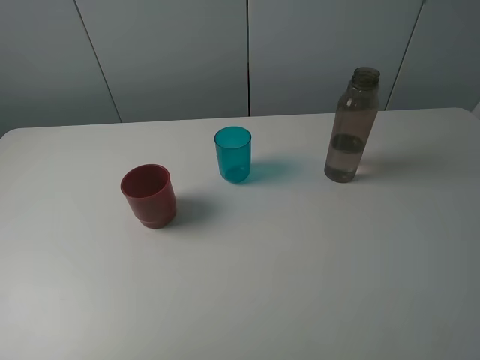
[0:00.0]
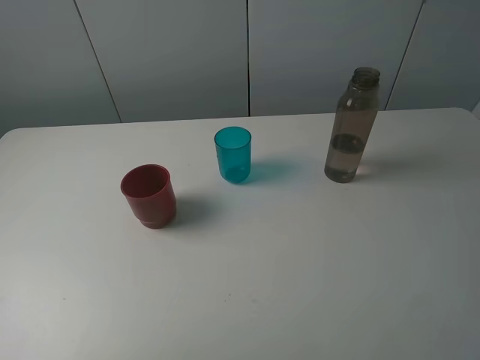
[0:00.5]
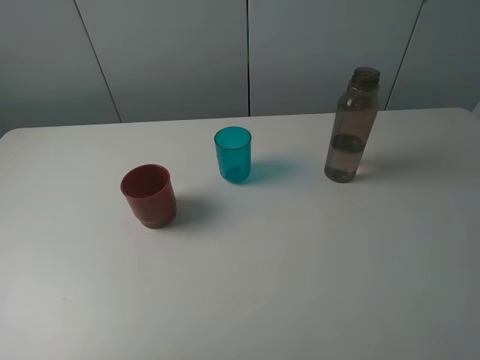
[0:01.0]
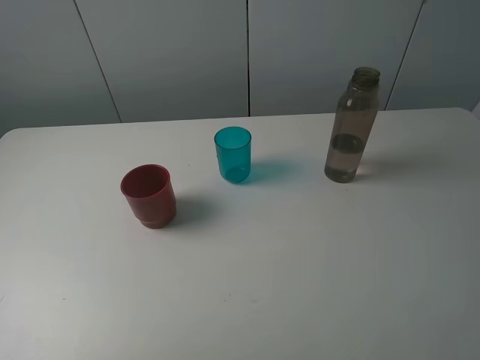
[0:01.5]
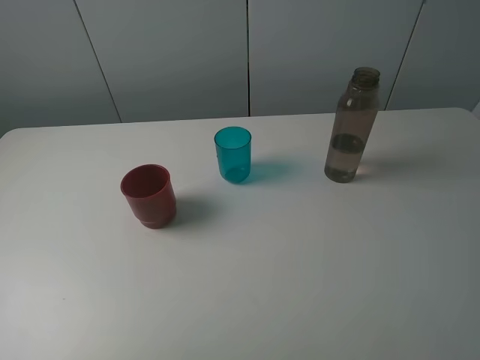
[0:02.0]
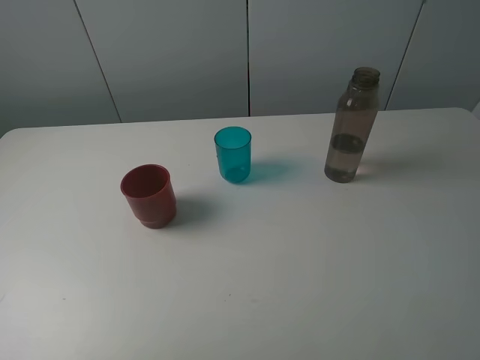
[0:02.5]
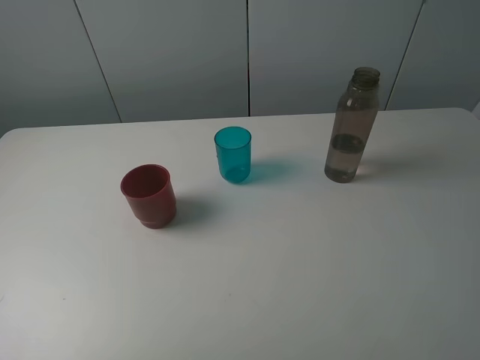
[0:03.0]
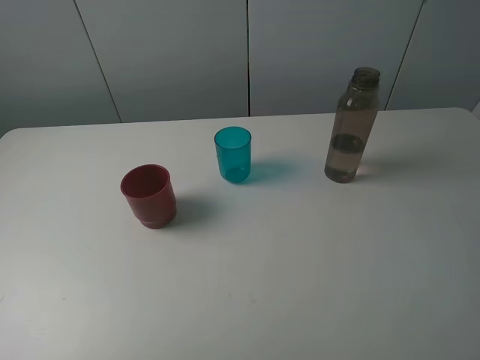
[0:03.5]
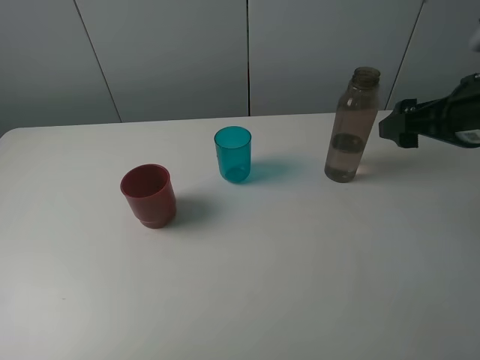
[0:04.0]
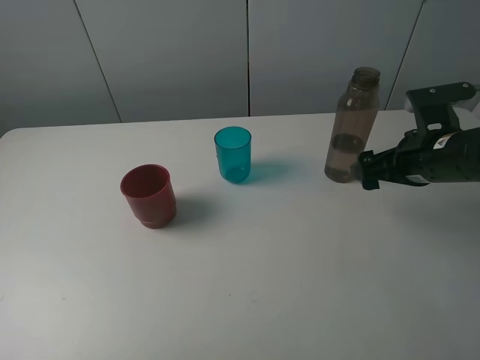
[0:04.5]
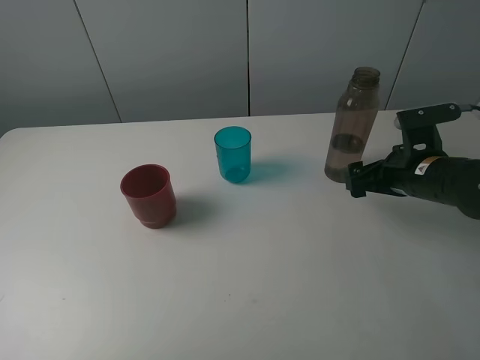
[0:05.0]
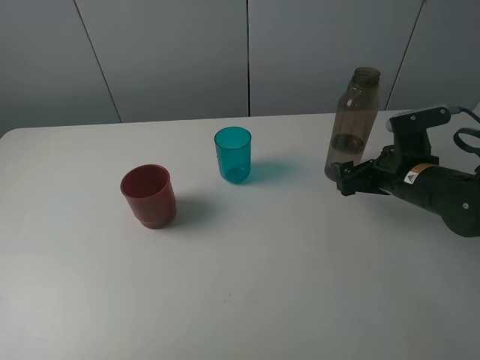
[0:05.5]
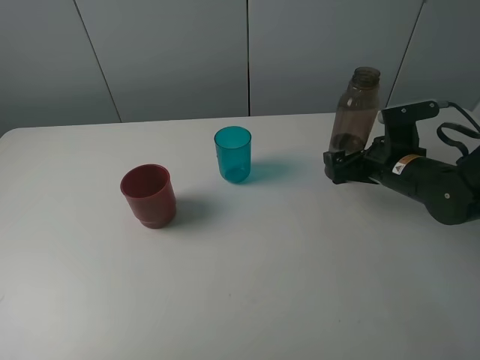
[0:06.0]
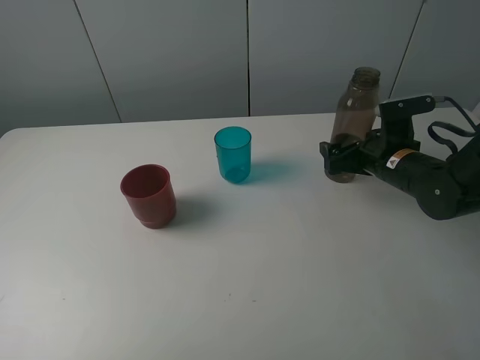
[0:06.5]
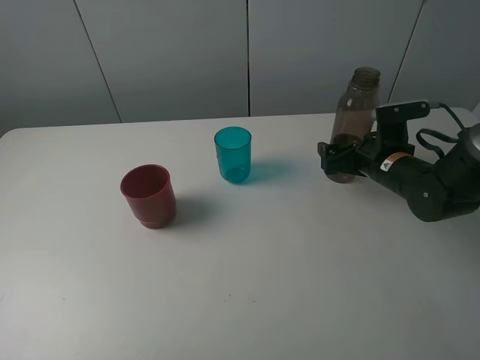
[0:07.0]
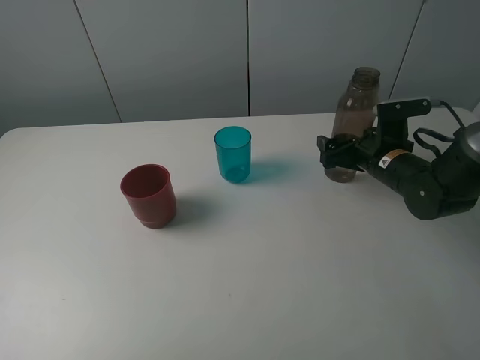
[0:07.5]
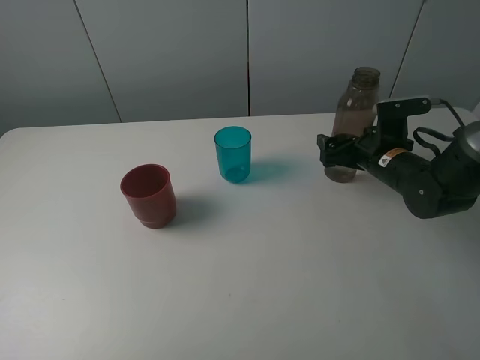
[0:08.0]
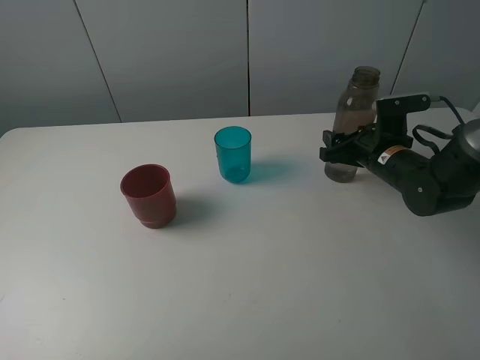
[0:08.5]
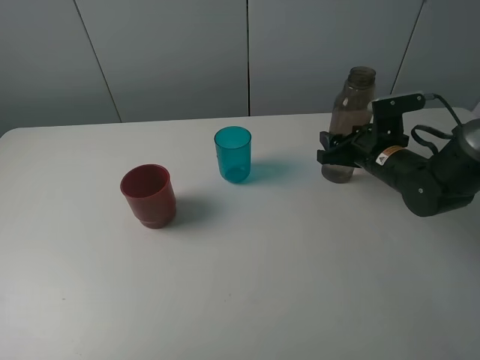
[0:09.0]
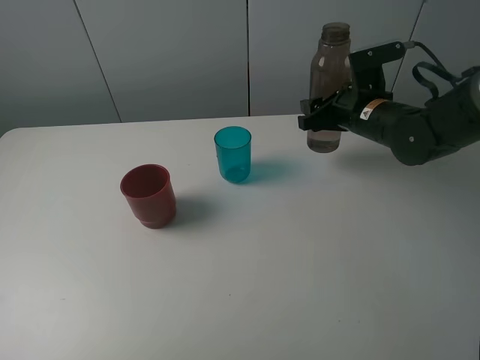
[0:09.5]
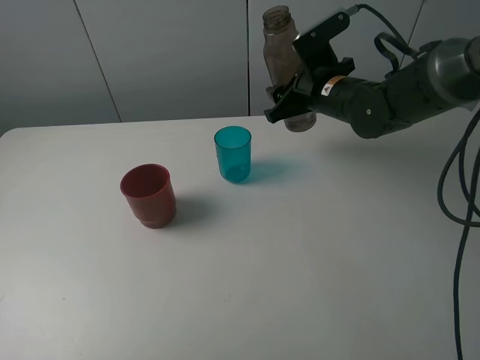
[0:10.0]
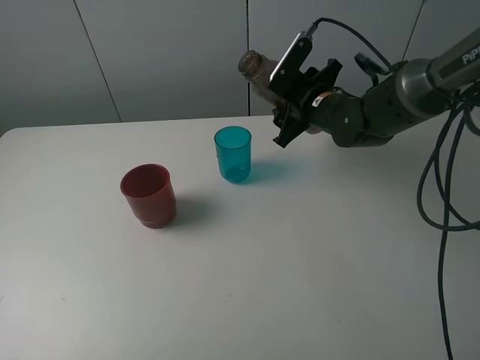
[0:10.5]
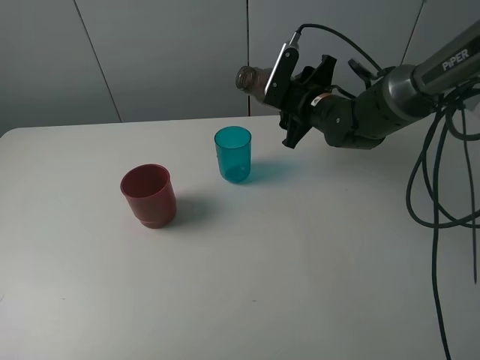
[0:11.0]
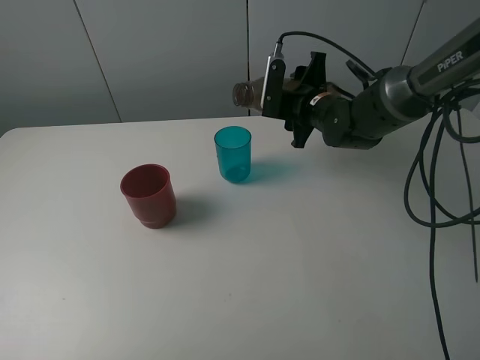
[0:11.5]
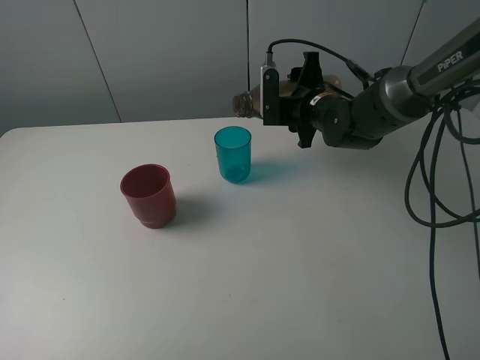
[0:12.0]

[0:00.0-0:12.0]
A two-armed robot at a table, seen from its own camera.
Task of the whole recording: pick up the bottle and pour water into the cup, then pick up the cup containing water and pour it into another cup.
Step, 0:00.0 to 0:08.5: Grasp the brown bottle with the right gripper.
0:00.0 to 0:02.0: Both grippers stay put.
0:02.0 to 0:04.0: The right gripper shifts some 25 cm forward.
0:04.0 to 0:06.0: The right gripper goes about 15 cm downward and forward.
0:06.0 to 0:08.0: The grippers stay close to where they were, moving slightly.
0:08.0 to 0:10.0: The right gripper heads to the left and upward, covering some 15 cm, and closes.

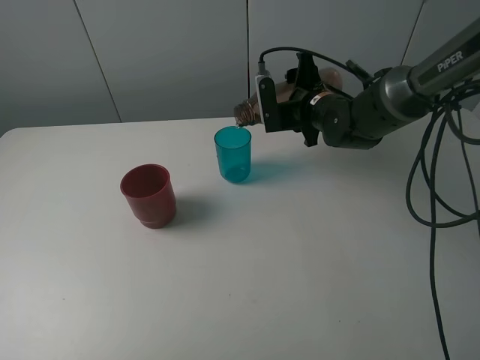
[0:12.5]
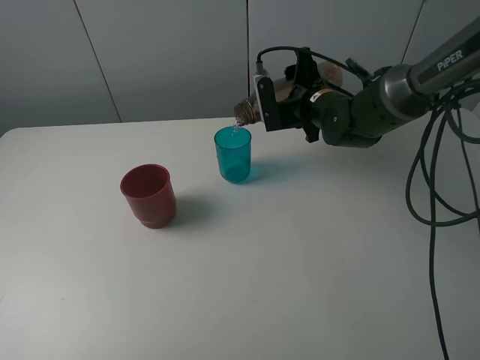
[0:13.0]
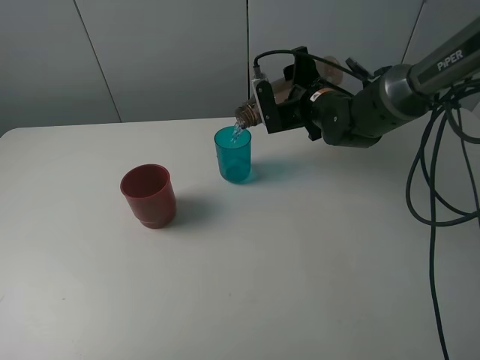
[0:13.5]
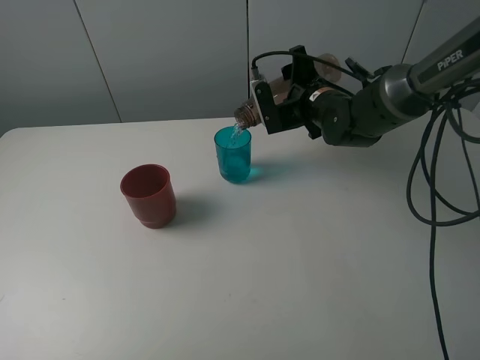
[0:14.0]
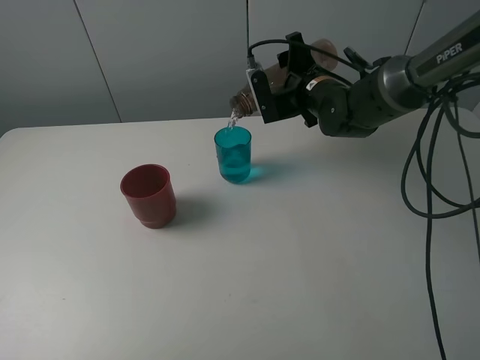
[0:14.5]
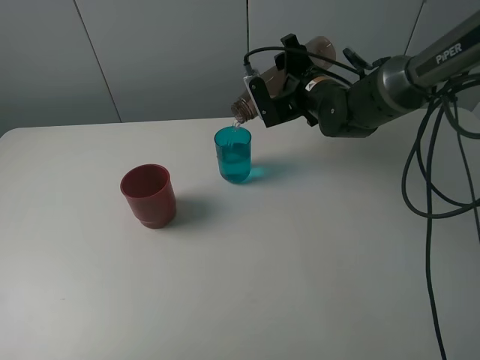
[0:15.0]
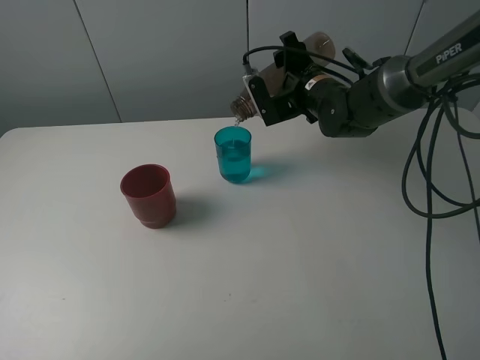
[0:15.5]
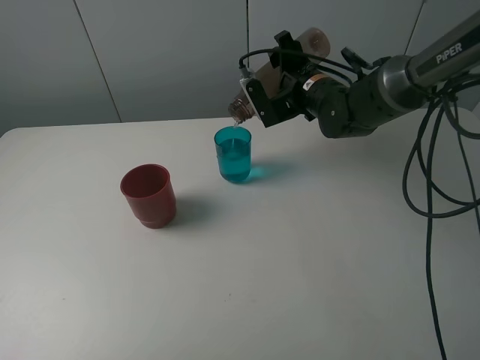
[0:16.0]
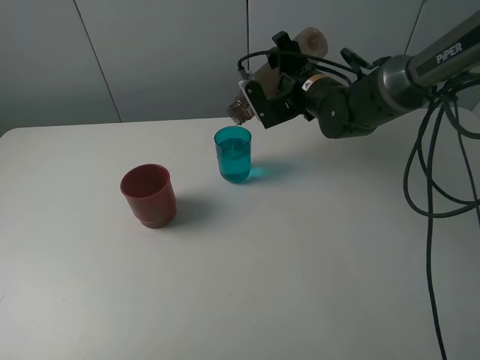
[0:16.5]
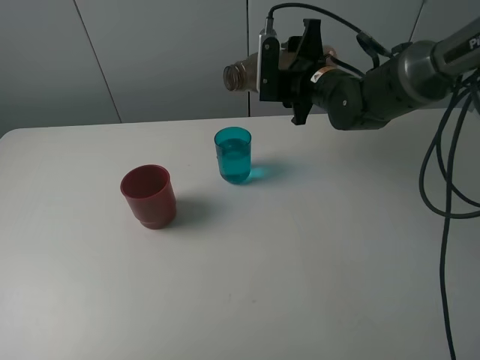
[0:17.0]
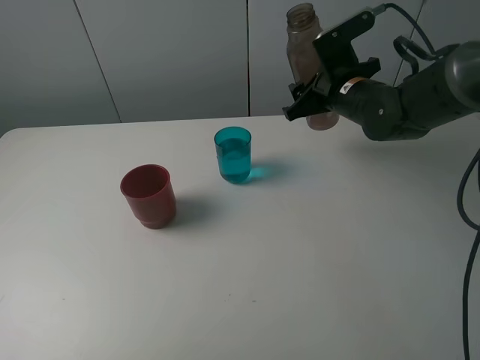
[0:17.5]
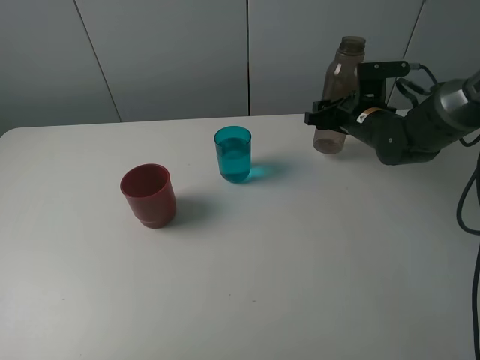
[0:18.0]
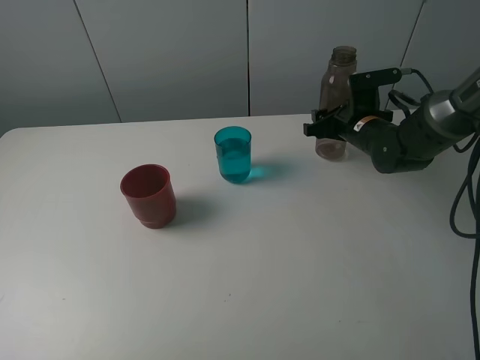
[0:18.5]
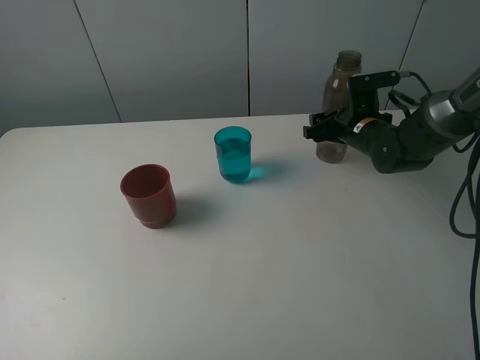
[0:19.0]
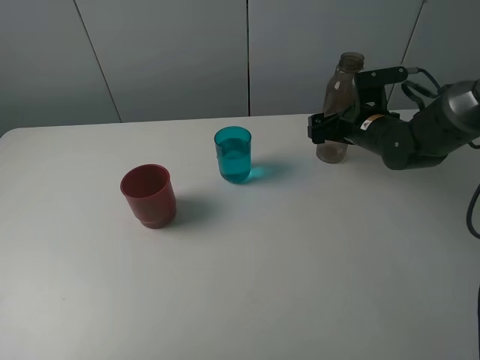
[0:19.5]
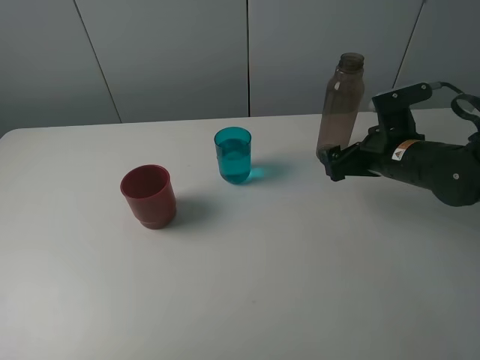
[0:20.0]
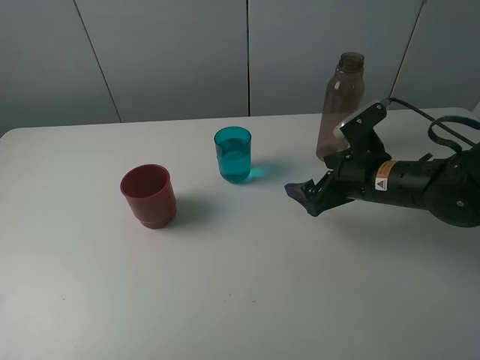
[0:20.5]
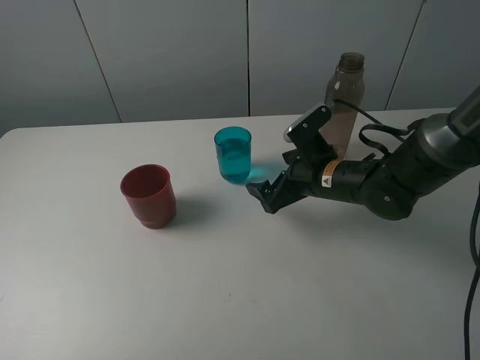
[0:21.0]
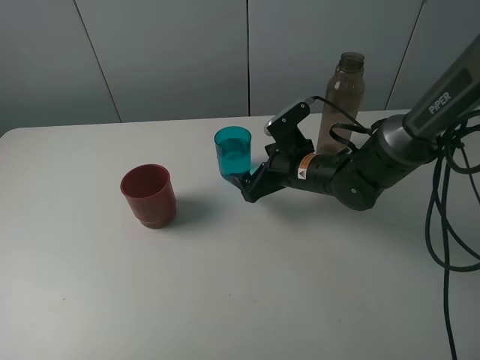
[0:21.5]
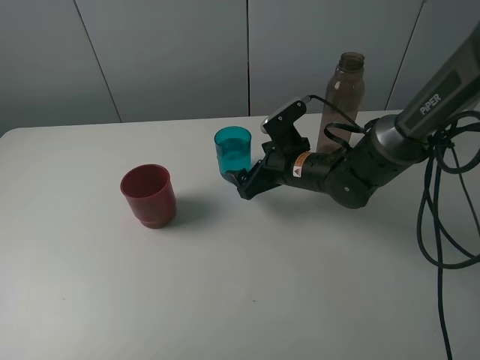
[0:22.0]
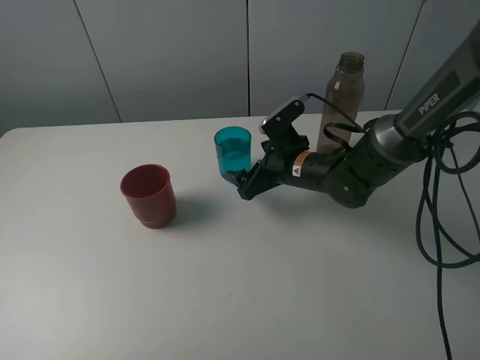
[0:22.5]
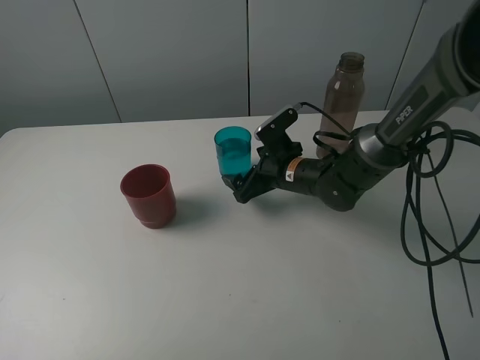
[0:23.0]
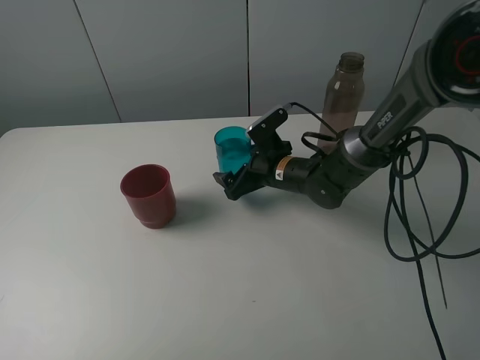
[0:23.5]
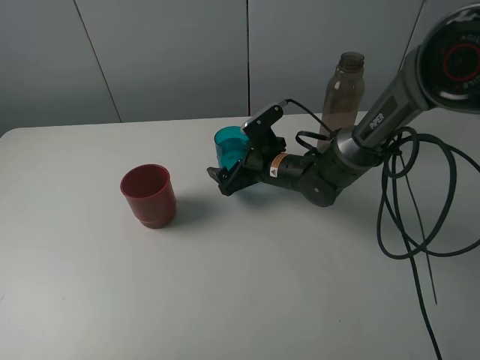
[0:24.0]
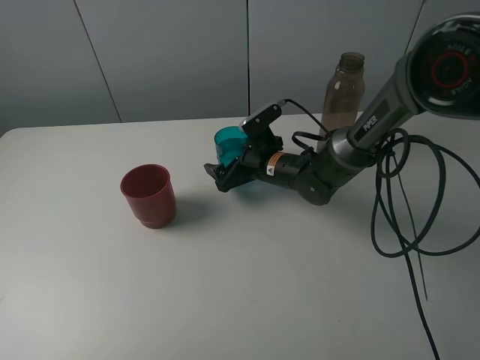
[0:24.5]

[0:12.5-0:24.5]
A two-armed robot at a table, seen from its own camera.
Task of the whole recording: pick up the bottle and pour water into the cup, then pick up the cup containing water and pour it into another cup.
Step, 0:12.5 to 0:16.5: Pour water from brown bottle to blue cup with the right gripper.
Step, 0:17.0 to 0:19.0: Place the brown bottle with the right gripper.
0:12.5 to 0:14.5: There are only small adjustments of the grippers.
0:14.5 to 0:16.5: The grippers stay close to where they were, moving slightly.
0:16.5 to 0:18.5: The right gripper travels to the right and downward by some 10 cm.
0:18.5 to 0:20.5: The right gripper shifts roughly 15 cm backward, and opens up.
0:20.5 to 0:22.5: The right gripper shifts some 10 cm to the left and forward.
0:22.5 to 0:24.5: The right gripper changes place by some 5 cm.

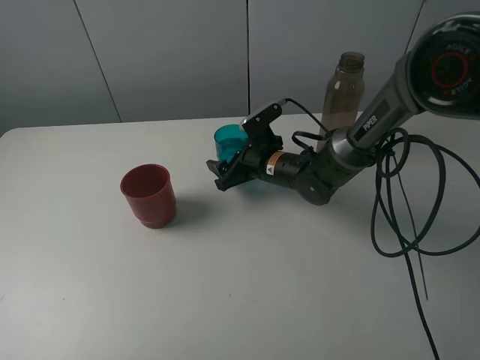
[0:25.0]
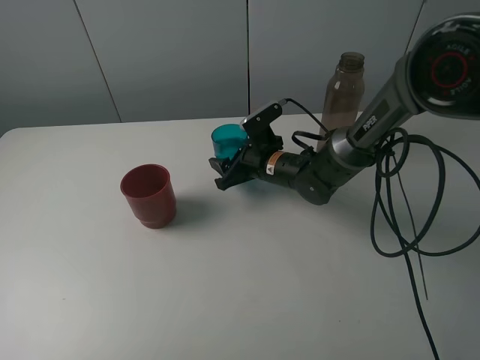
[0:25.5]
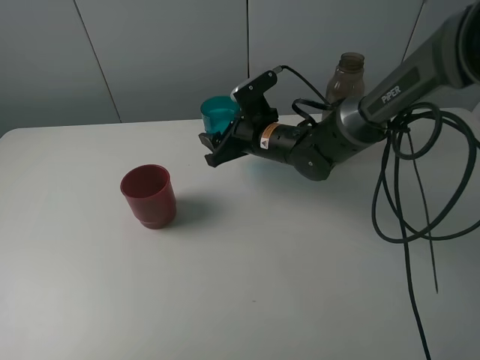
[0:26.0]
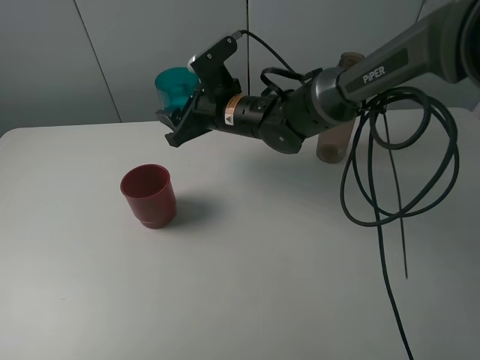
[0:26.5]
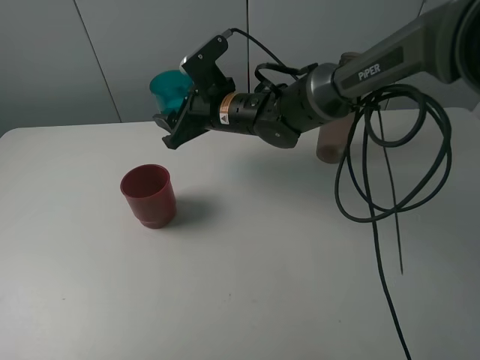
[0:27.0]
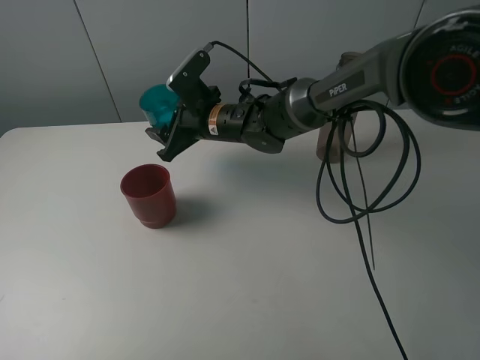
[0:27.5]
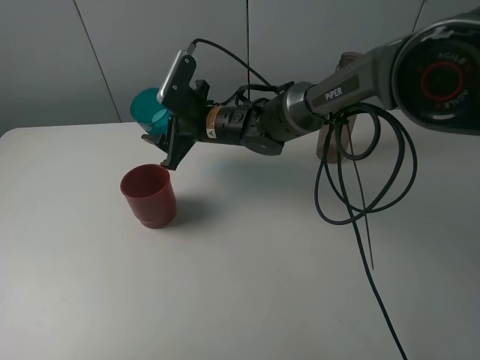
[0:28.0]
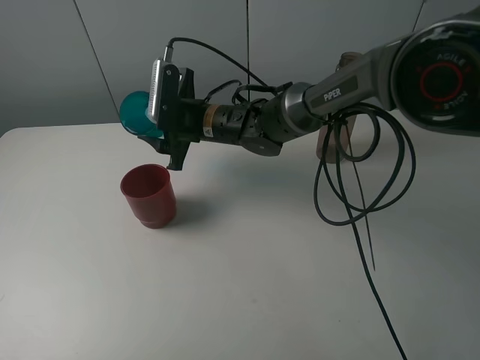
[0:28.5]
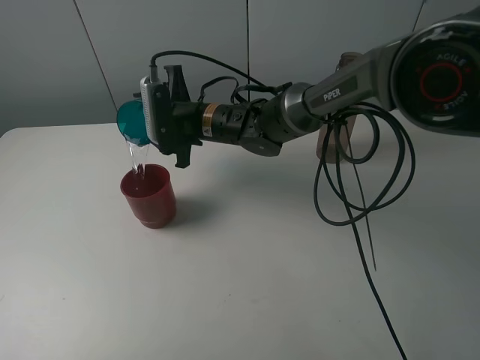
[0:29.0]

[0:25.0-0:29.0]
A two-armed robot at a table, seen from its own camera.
Task of the whole recording: pick up the bottle and pour water into the cup, then pick up the cup containing water and pour it into another cup.
0:25.0 to 0:27.0: The right gripper is displaced upward and to the left by approximately 15 cm.
